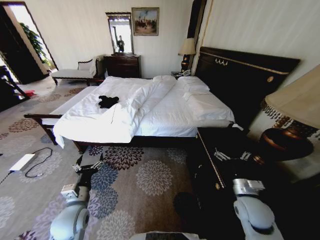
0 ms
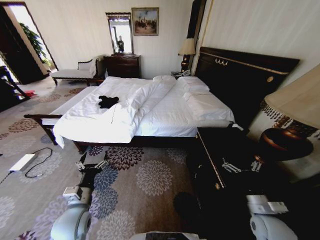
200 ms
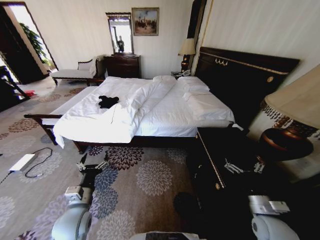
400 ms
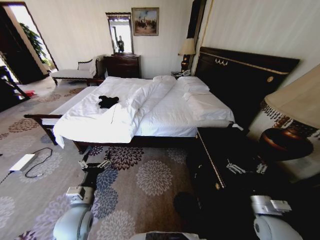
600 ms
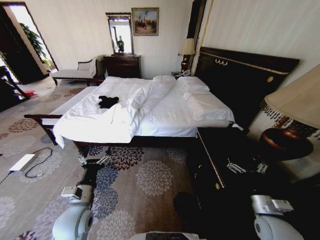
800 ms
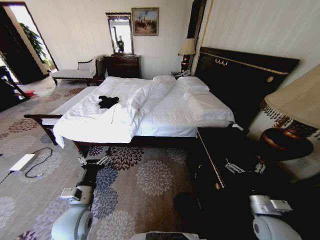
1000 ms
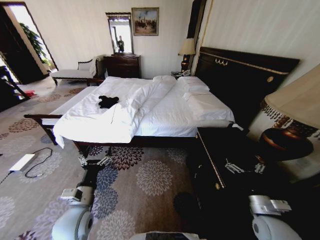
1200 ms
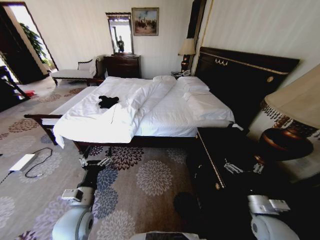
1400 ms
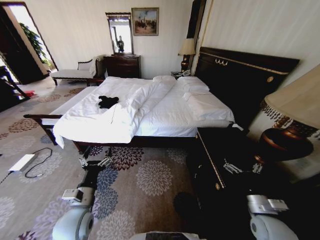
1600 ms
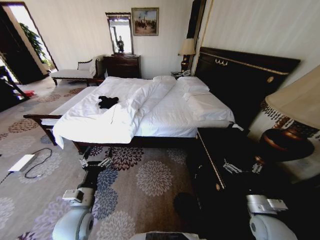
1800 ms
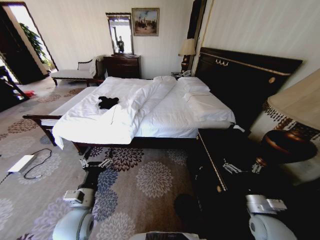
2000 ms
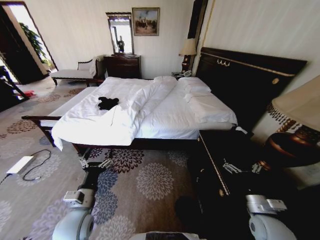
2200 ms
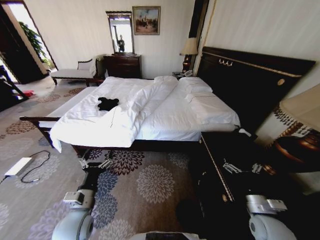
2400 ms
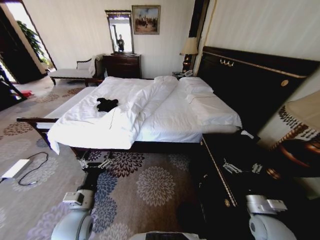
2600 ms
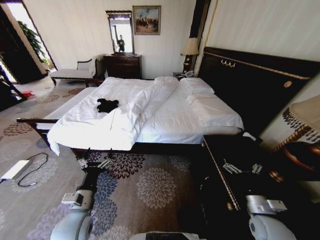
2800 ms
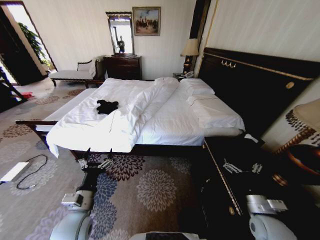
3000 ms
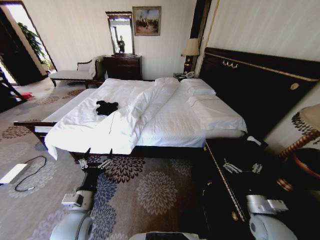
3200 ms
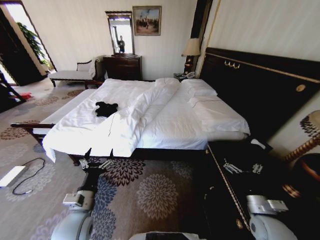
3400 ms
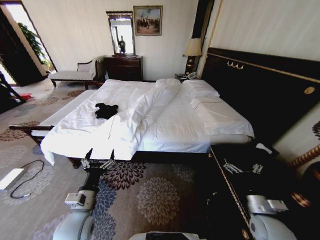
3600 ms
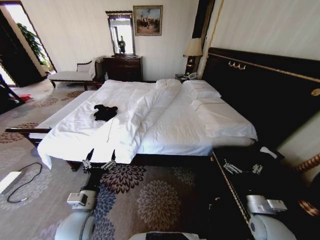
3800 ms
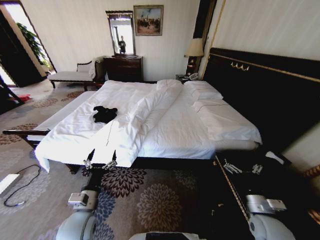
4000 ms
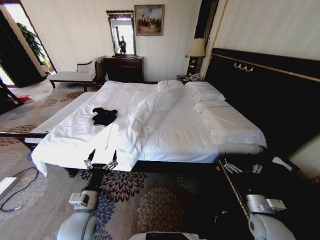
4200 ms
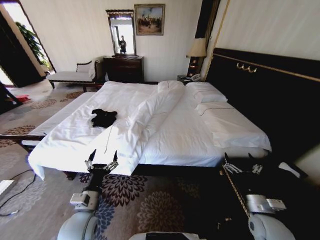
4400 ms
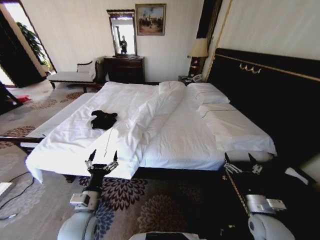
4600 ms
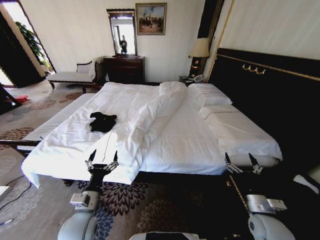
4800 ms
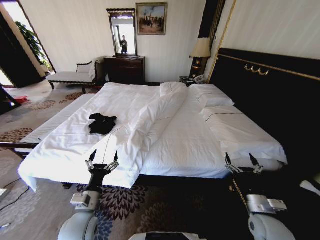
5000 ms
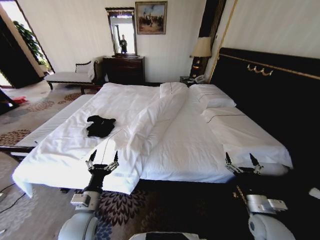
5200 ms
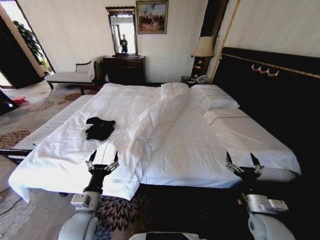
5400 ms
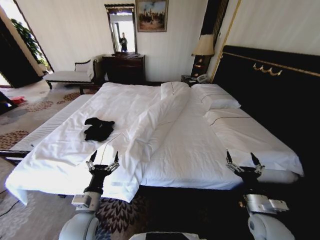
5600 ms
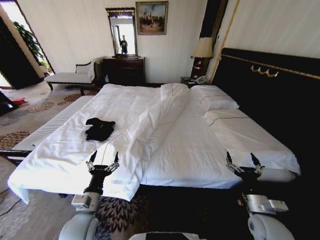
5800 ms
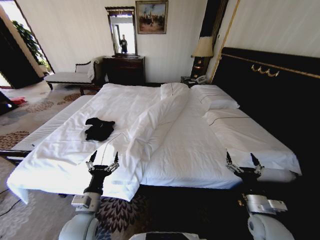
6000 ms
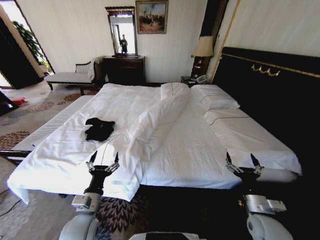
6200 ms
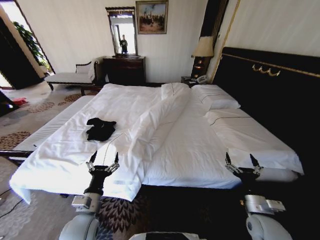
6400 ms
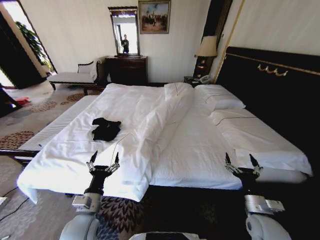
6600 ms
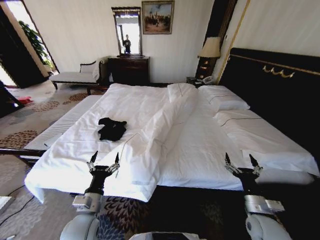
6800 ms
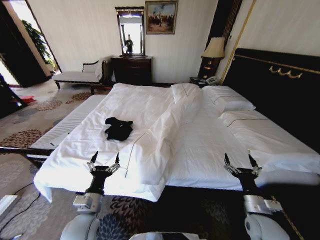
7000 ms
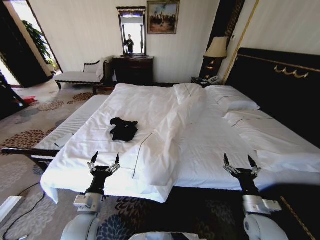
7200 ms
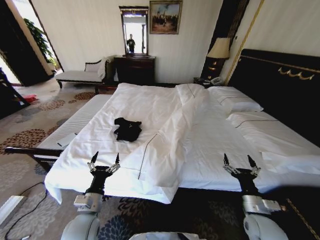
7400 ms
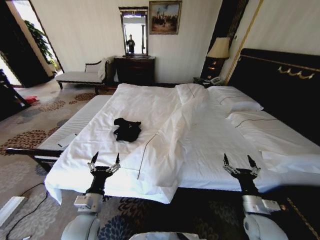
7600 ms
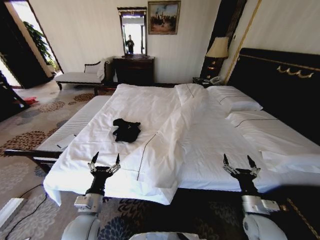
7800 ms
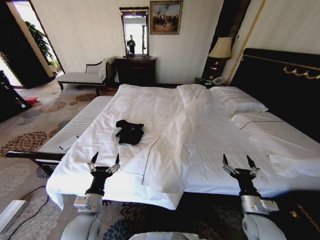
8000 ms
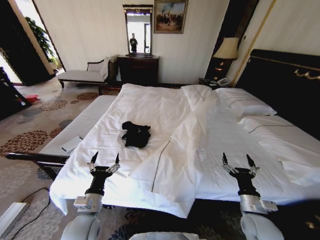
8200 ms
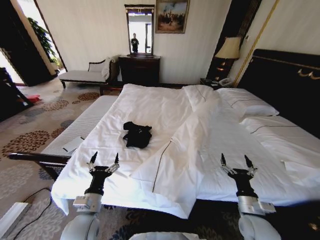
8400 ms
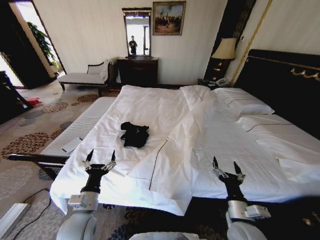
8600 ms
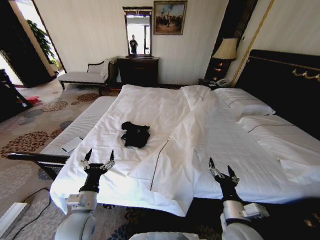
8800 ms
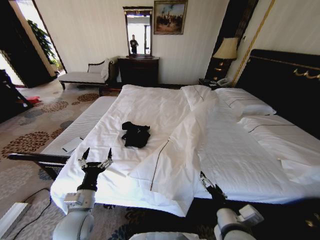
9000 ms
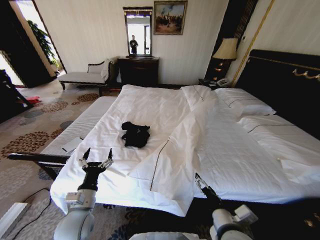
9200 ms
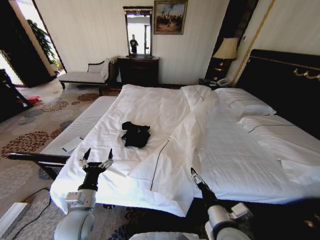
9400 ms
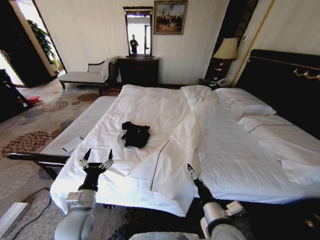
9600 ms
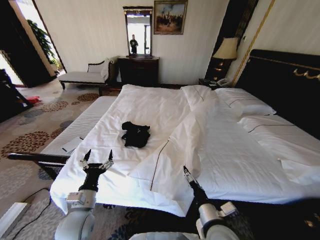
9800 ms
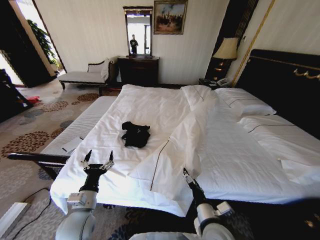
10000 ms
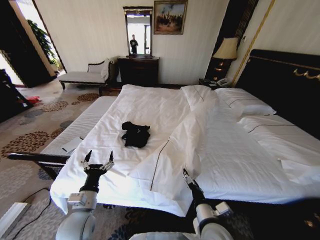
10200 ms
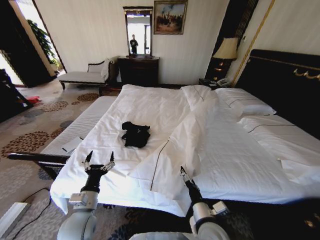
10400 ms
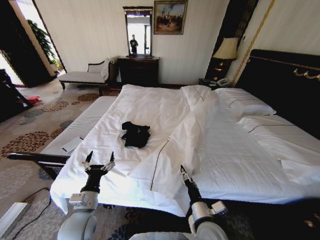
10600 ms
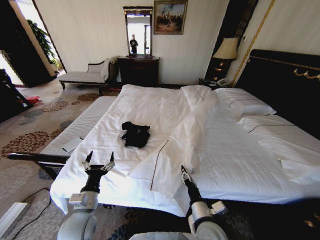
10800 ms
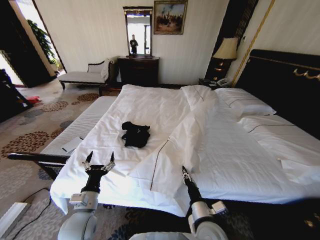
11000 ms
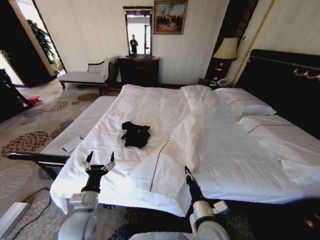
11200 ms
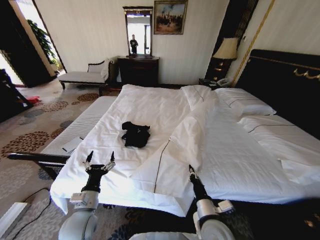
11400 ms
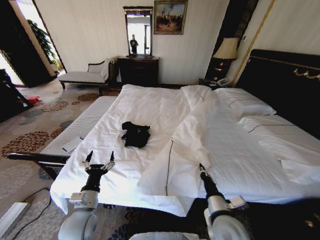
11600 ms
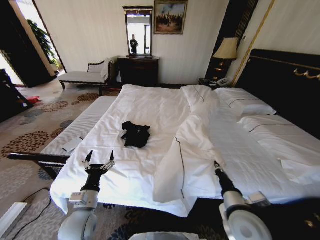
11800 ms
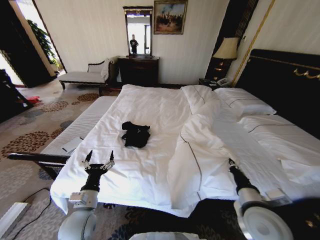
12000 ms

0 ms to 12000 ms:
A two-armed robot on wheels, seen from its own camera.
Task of the whole recording: Fold the clothes on the bed.
7600 ms to 9000 ms: The right gripper is displaced to the left and upward by roughly 15 cm.
9000 ms to 10400 ms: The right gripper moves downward, roughly 5 cm.
10400 ms to 12000 ms: The right gripper heads to the right and upward, covering roughly 15 cm, and closes up.

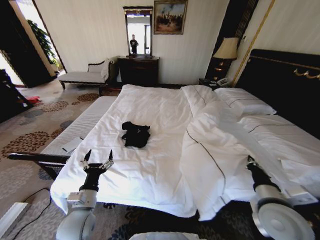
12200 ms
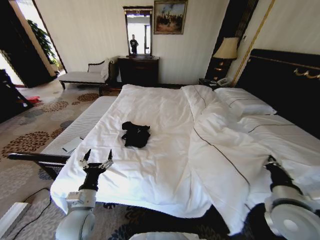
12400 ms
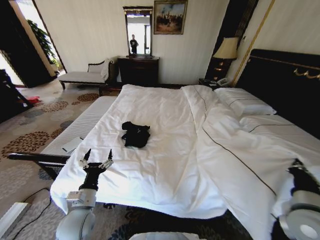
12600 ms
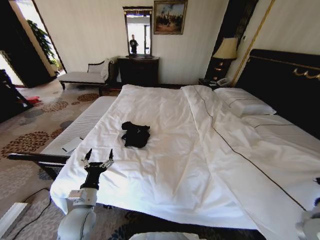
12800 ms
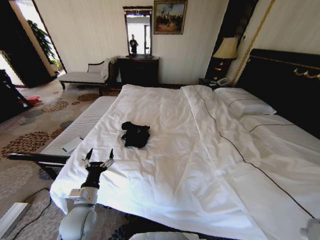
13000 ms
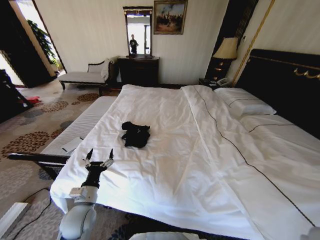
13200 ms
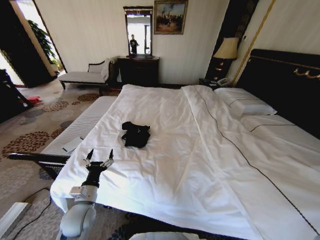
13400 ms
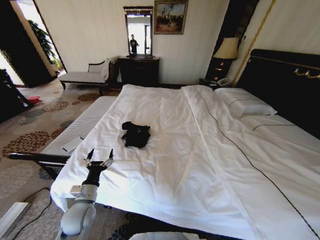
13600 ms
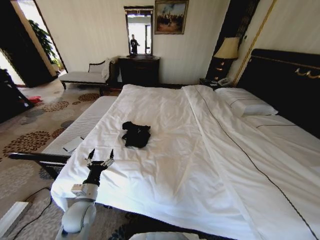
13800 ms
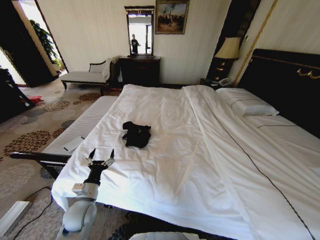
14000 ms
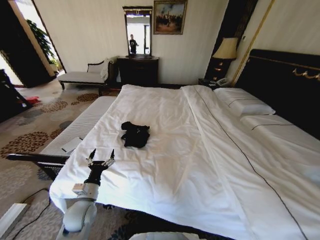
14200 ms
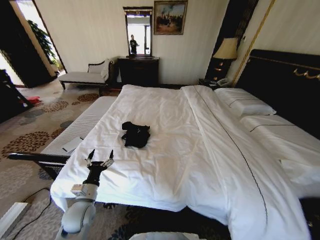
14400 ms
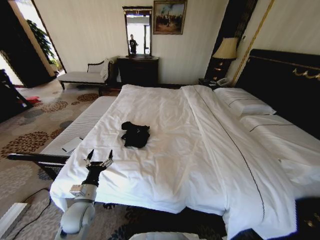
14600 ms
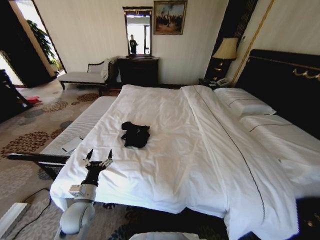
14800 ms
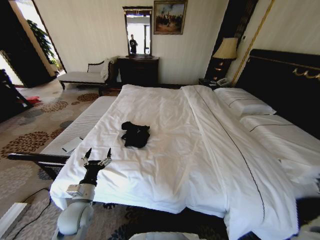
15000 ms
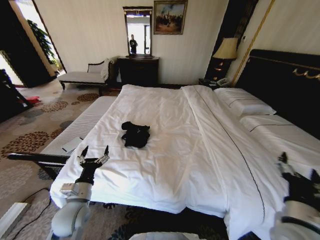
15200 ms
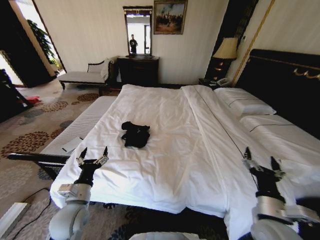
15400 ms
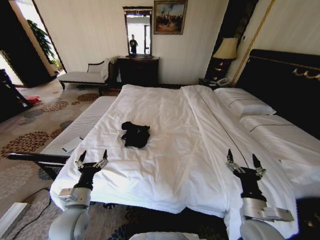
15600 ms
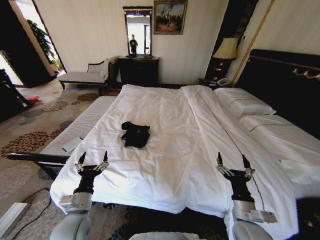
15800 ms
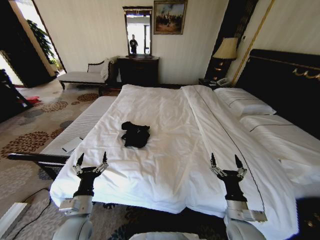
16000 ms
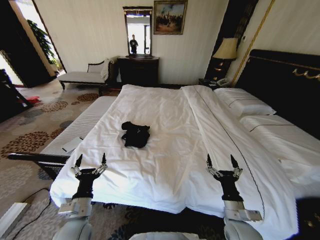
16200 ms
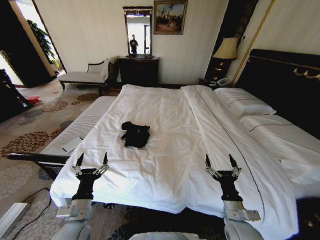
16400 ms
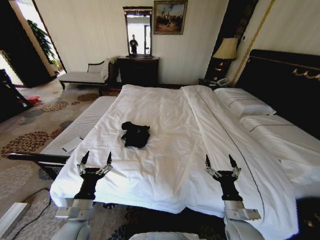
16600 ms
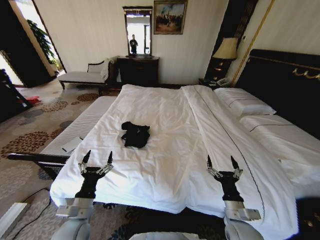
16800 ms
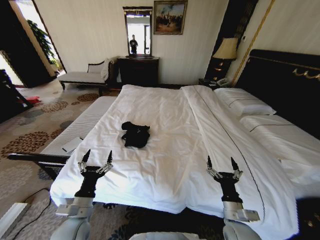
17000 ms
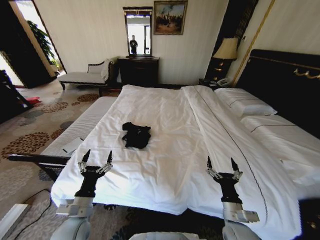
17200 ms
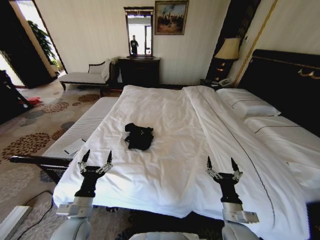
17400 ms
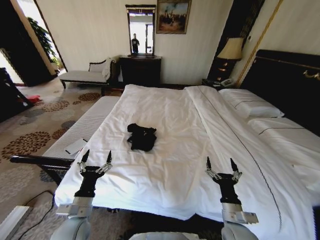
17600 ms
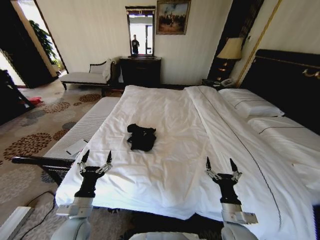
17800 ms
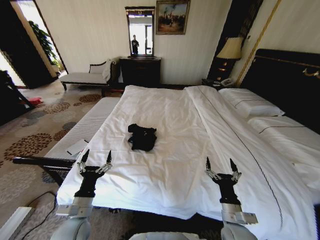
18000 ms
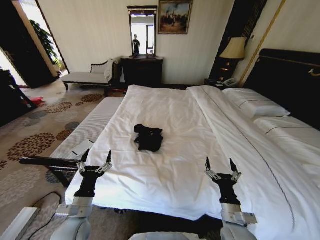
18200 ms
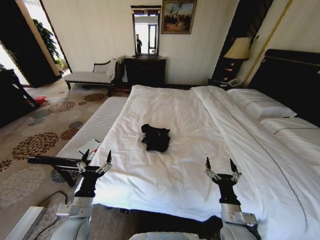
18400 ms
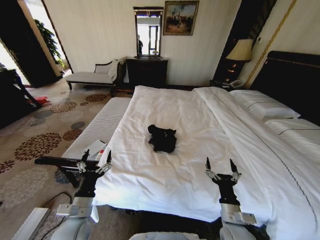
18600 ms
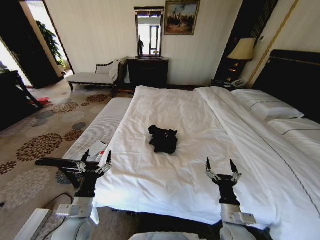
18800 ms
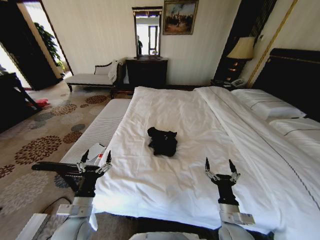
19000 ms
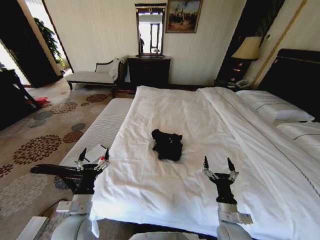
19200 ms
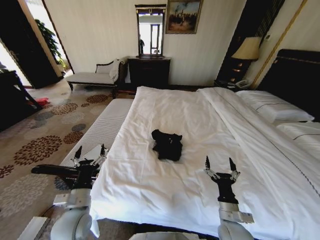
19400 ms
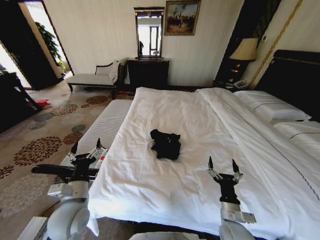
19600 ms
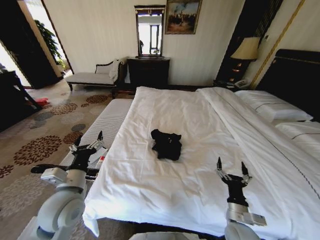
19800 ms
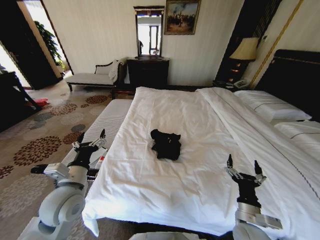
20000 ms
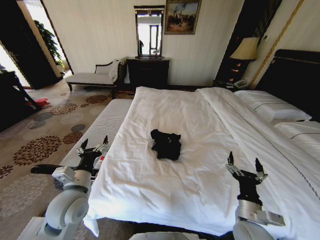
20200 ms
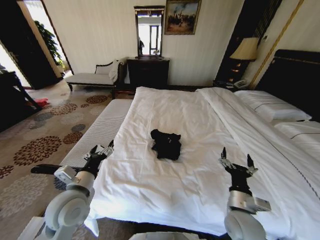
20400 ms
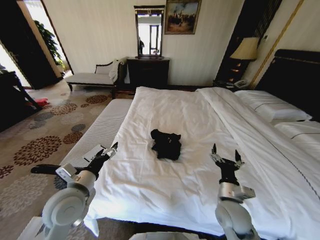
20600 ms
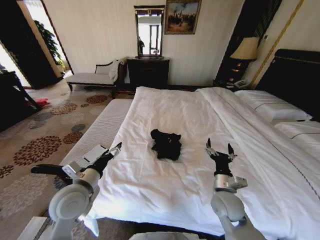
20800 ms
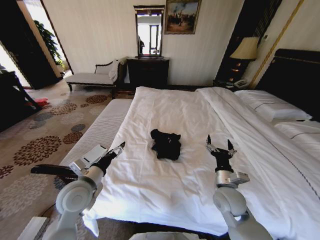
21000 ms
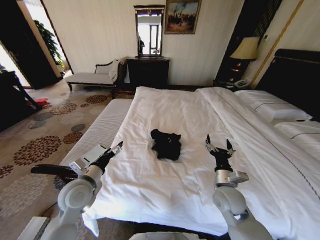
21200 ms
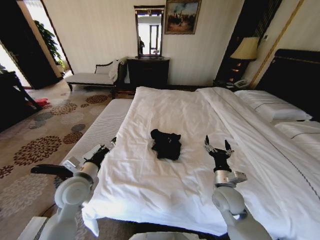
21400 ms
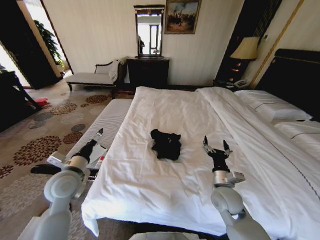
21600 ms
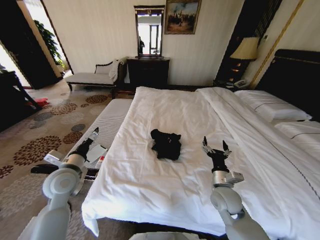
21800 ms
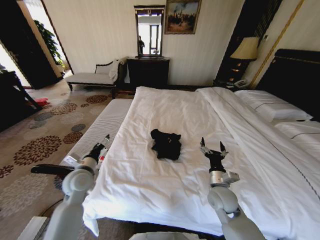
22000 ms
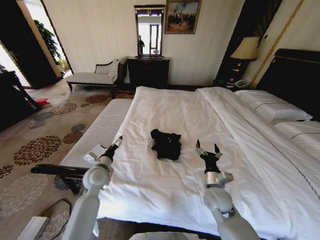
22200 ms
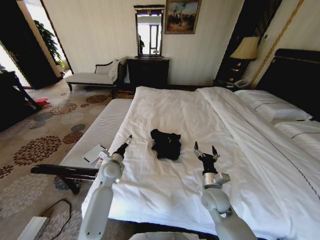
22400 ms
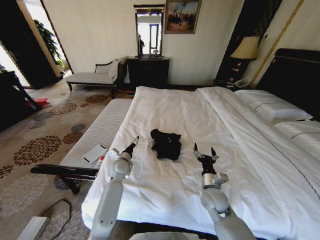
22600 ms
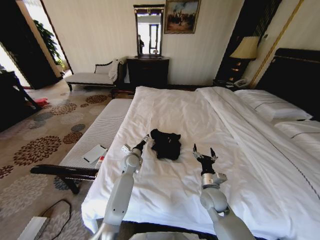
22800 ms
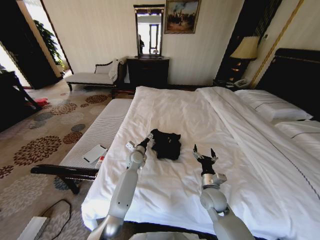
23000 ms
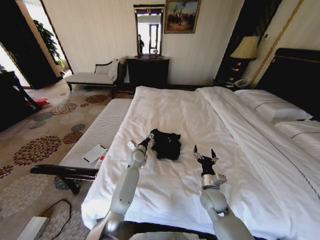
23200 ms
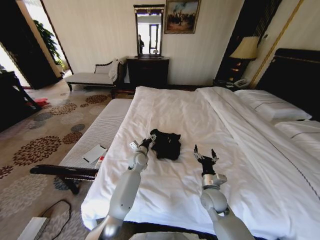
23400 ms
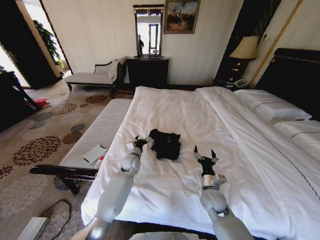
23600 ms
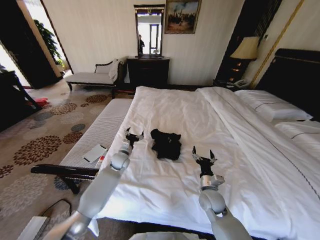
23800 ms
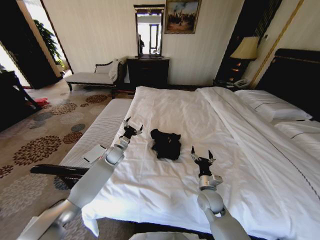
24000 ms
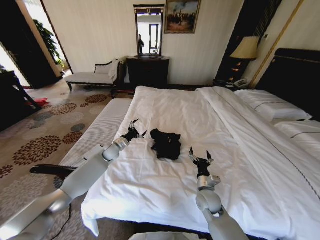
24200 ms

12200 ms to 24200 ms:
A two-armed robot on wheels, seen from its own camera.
Task of the whole recording: Fold the clothes on the bed.
12200 ms to 13800 ms: The right gripper travels to the right and backward by approximately 15 cm.
13800 ms to 15200 ms: The right gripper is displaced to the left by roughly 10 cm, and opens.
15200 ms to 16600 ms: The right gripper travels downward and to the left by about 15 cm. The left gripper moves backward, roughly 5 cm.
18200 ms to 19800 ms: The left gripper moves upward, approximately 10 cm.
19800 ms to 21200 ms: The right gripper heads forward and upward, covering some 10 cm, while the left gripper changes place by about 5 cm.
21200 ms to 22600 ms: The left gripper shifts roughly 20 cm forward, downward and to the right; the right gripper moves downward, roughly 5 cm.
22600 ms to 24200 ms: The left gripper heads forward and to the left, covering approximately 10 cm.
